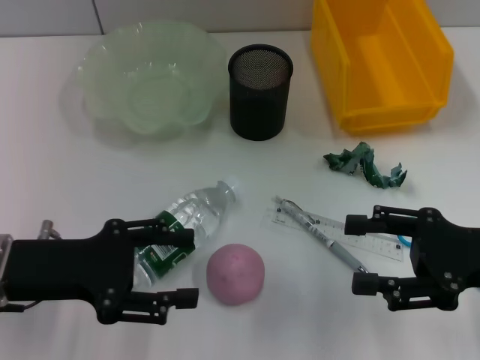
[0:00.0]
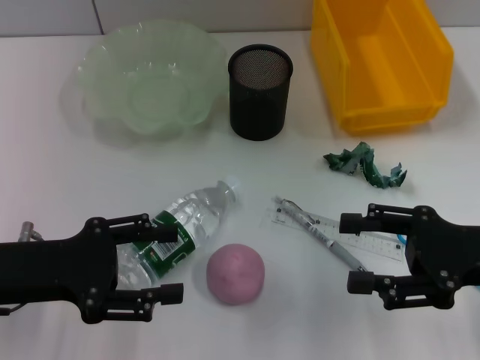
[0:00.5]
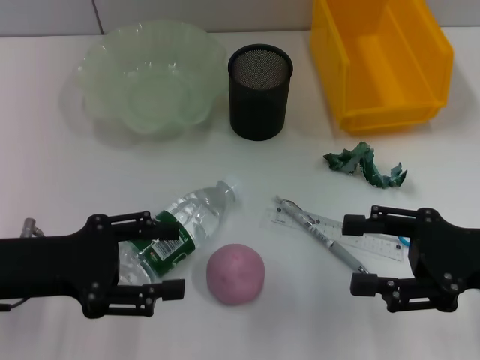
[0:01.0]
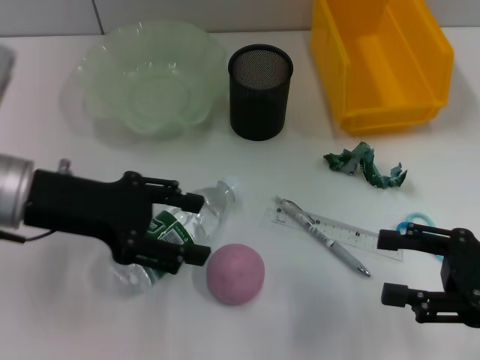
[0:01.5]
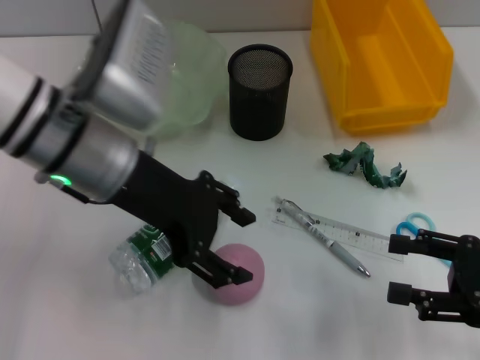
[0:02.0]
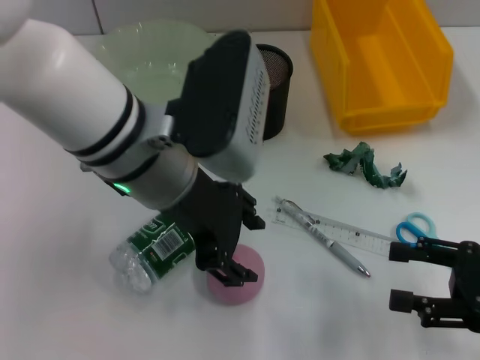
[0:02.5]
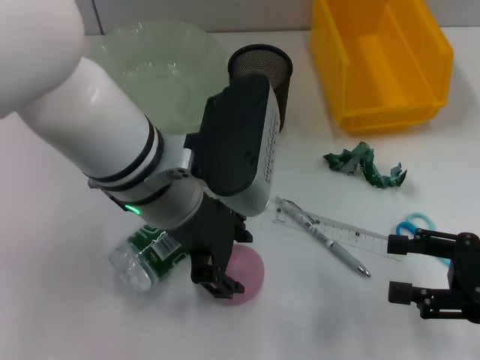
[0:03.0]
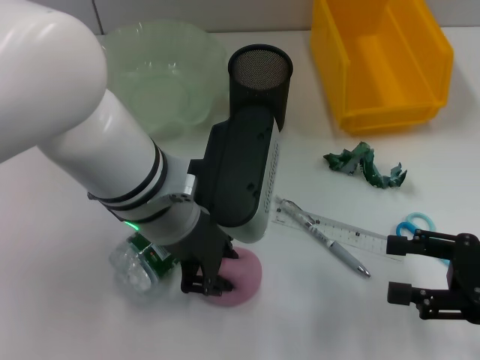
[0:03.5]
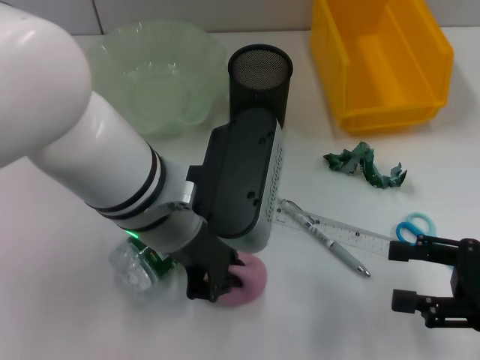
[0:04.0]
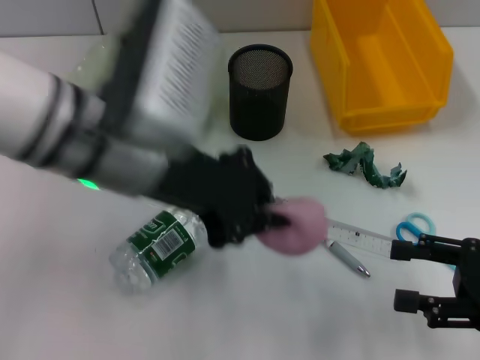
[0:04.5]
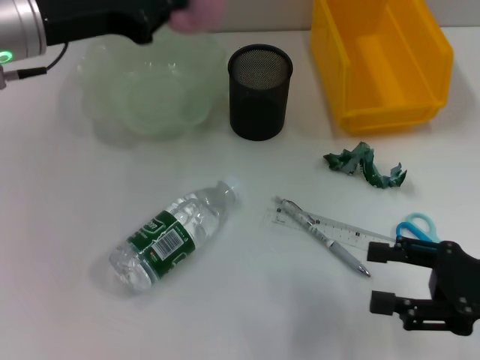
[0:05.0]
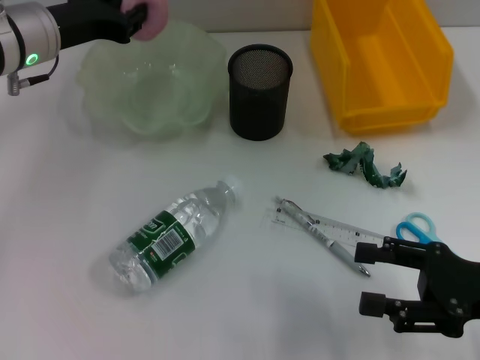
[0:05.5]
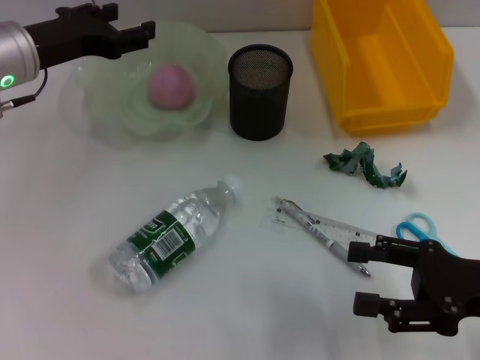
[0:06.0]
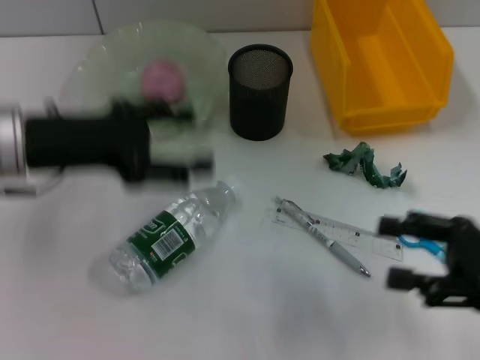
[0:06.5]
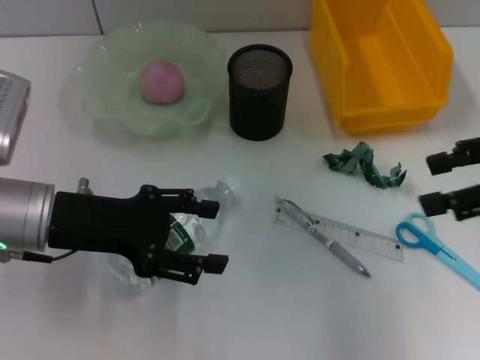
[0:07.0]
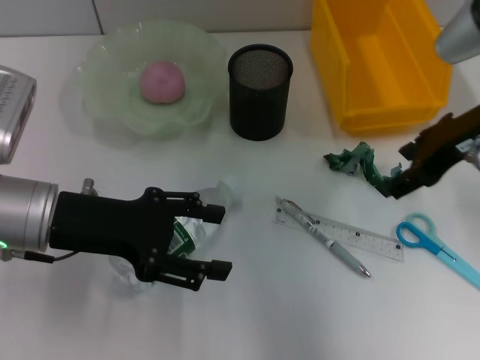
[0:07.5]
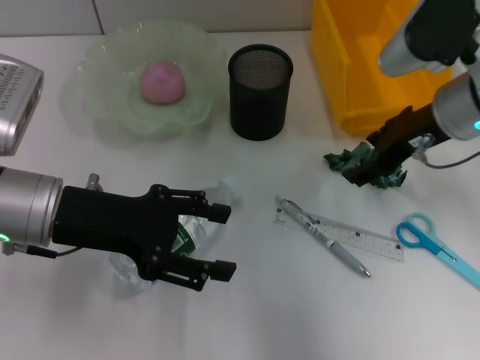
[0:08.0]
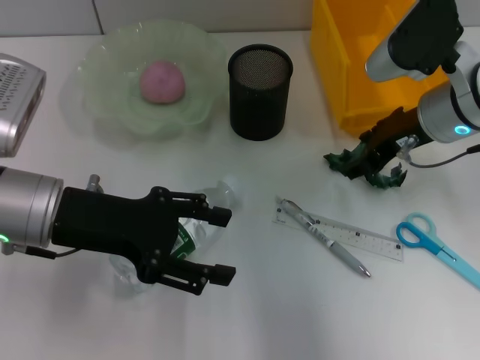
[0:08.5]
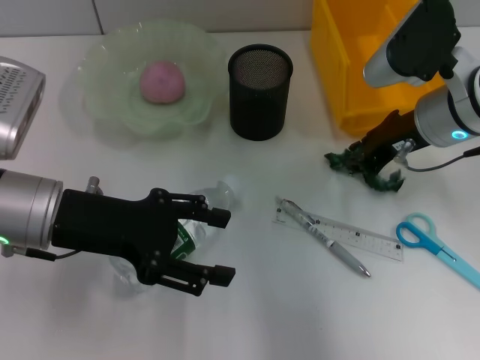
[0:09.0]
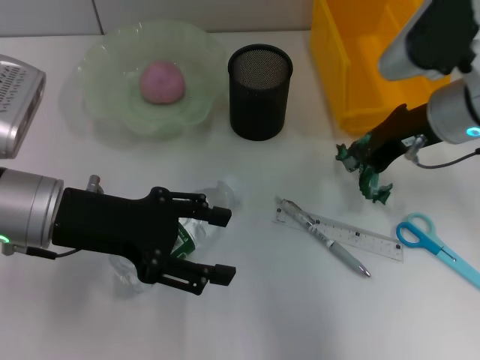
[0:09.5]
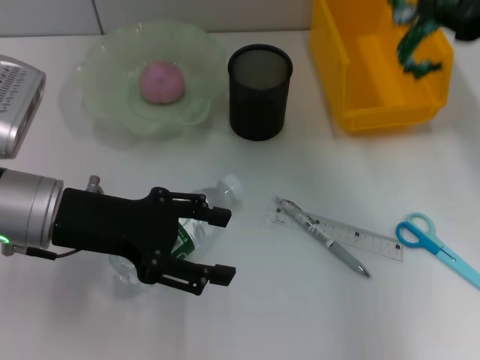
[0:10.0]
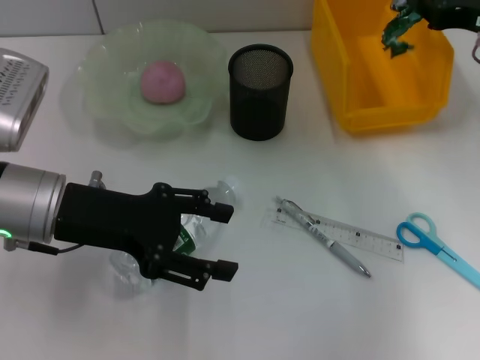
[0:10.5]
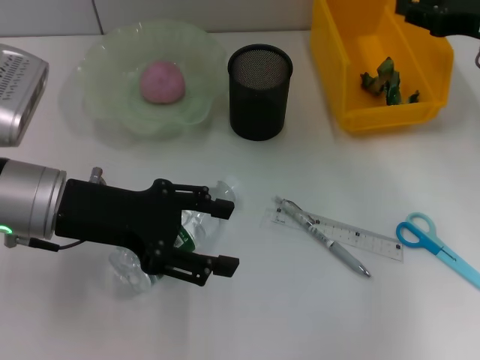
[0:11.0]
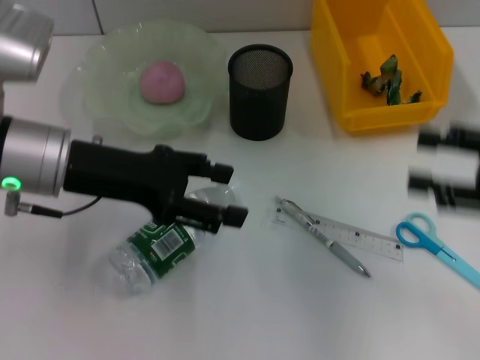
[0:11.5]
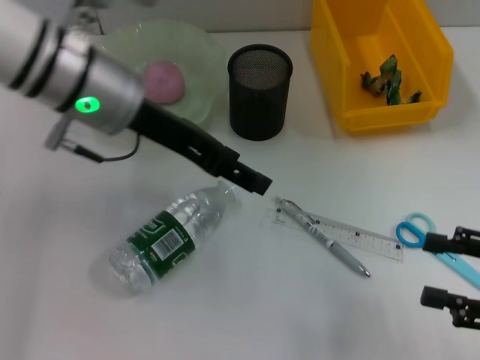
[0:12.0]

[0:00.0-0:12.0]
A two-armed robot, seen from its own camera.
Step, 0:00.0 to 0:03.5: Grab the peach with the left hand.
Step, 0:04.0 to 0:06.0: Place the peach into the fruit bowl with the left hand.
Step, 0:06.5 to 0:09.0: Grab the plastic with the right hand.
Step, 0:09.5 to 0:10.5: Place the plastic into the trash can with the right hand.
0:00.0 to 0:02.0: The left gripper is displaced to the right, upward and forward by about 15 cm. The right gripper shifts by approximately 5 cm.
0:02.0 to 0:04.0: The left gripper travels to the right by approximately 5 cm, and closes.
0:04.0 to 0:06.0: The left gripper moves to the left and forward, approximately 20 cm, and opens.
0:06.0 to 0:08.0: The left gripper is displaced backward by roughly 10 cm; the right gripper heads forward, upward and to the left, covering some 20 cm.
0:08.0 to 0:10.0: The right gripper goes some 10 cm to the right and upward, and closes.
0:10.0 to 0:12.0: The left gripper shifts about 10 cm upward and forward. The right gripper shifts roughly 20 cm backward and downward, and opens.

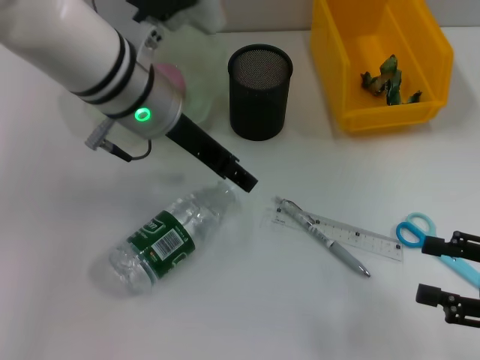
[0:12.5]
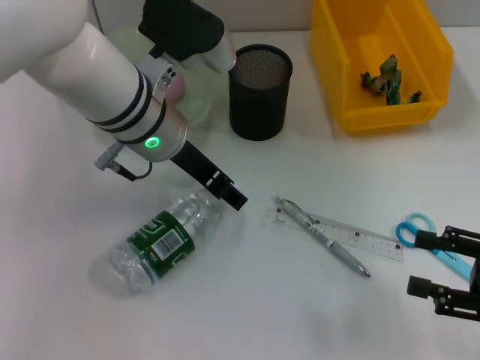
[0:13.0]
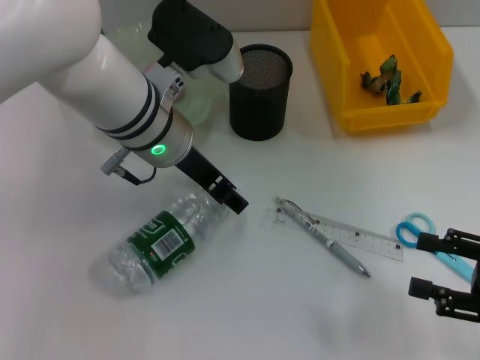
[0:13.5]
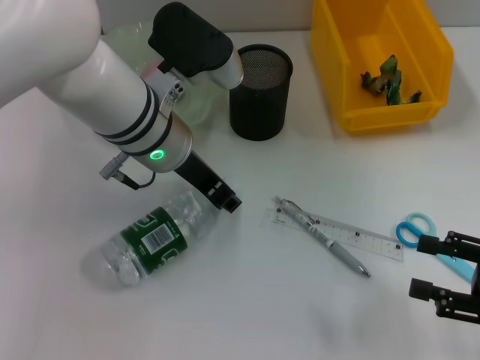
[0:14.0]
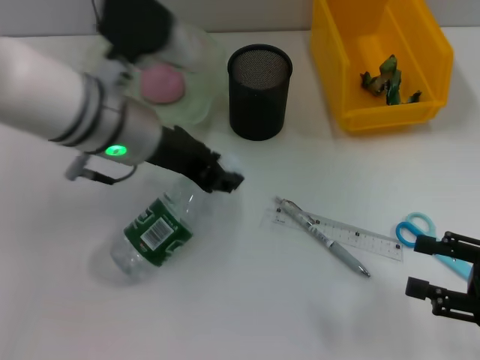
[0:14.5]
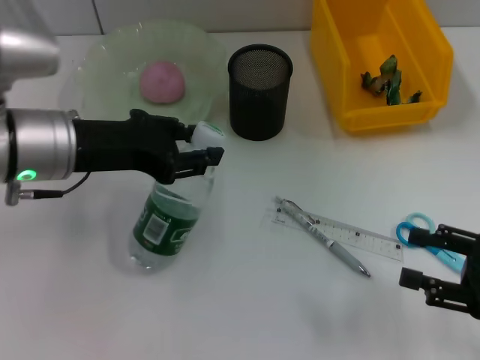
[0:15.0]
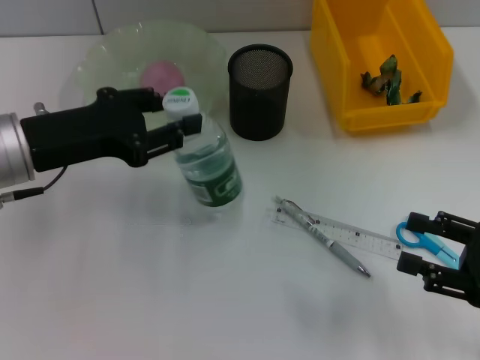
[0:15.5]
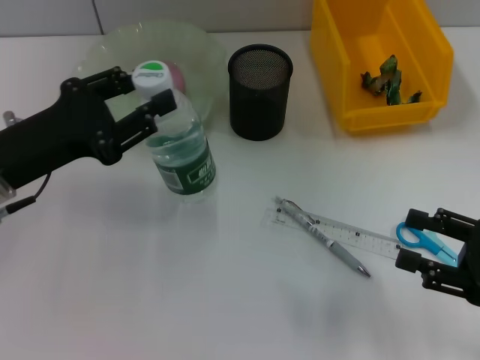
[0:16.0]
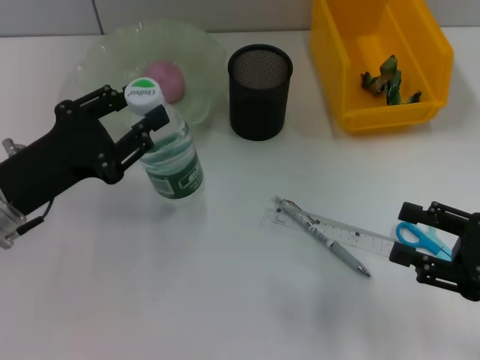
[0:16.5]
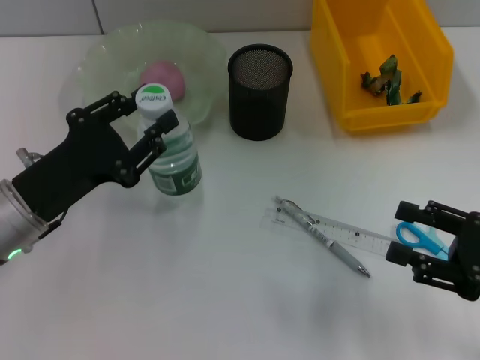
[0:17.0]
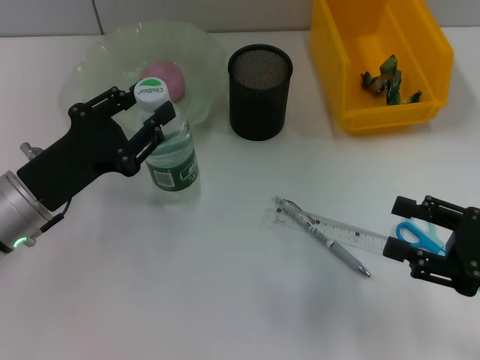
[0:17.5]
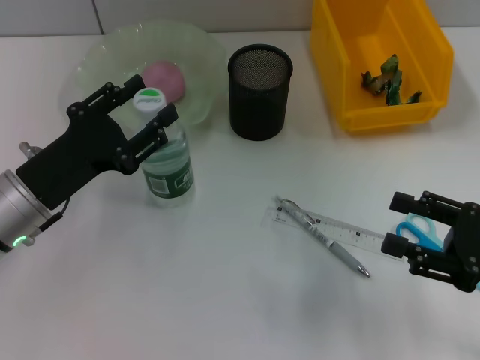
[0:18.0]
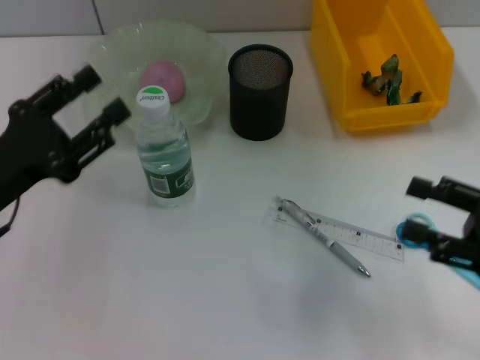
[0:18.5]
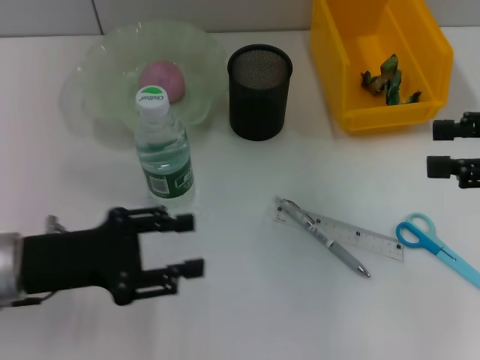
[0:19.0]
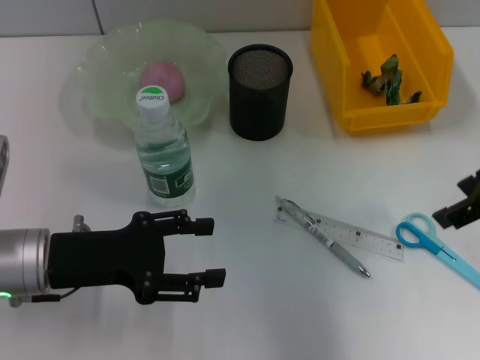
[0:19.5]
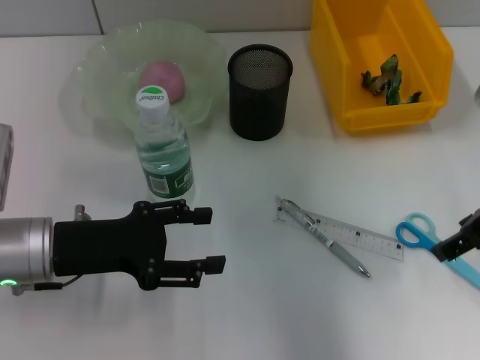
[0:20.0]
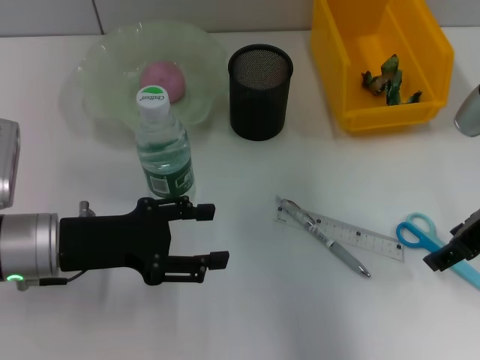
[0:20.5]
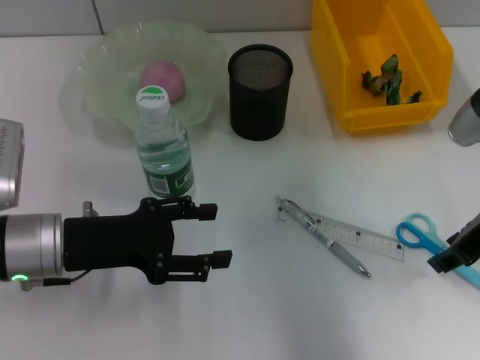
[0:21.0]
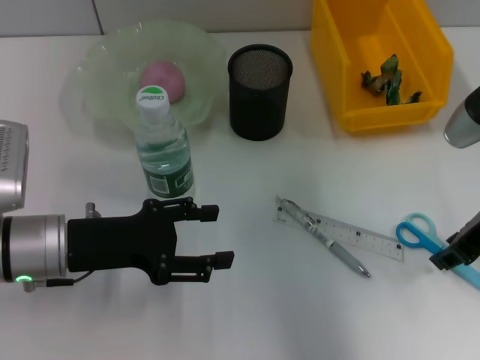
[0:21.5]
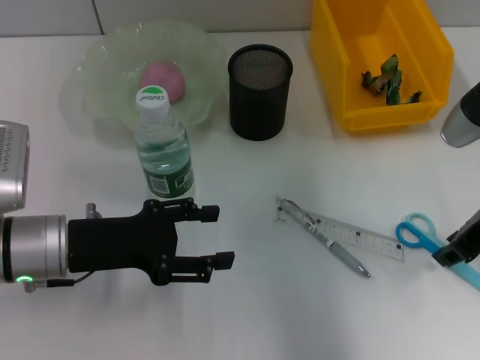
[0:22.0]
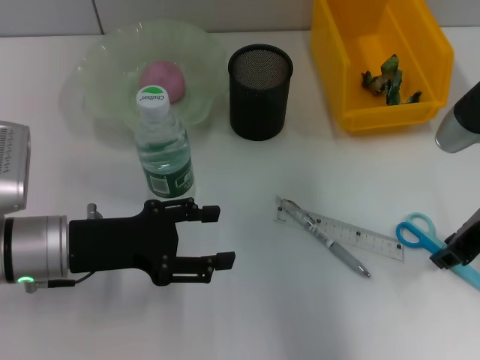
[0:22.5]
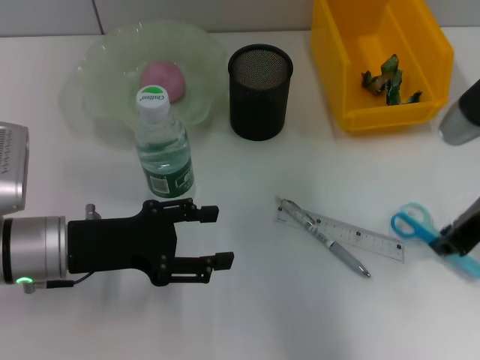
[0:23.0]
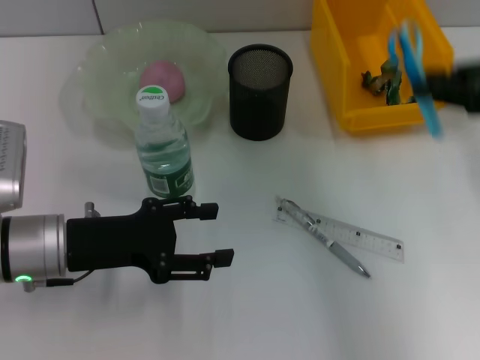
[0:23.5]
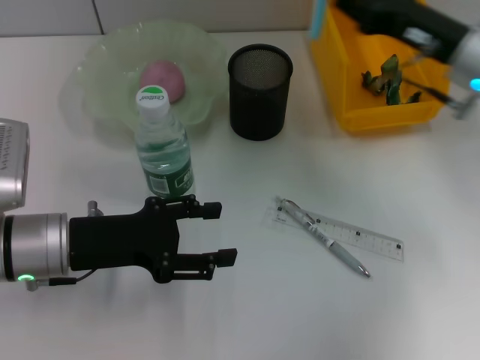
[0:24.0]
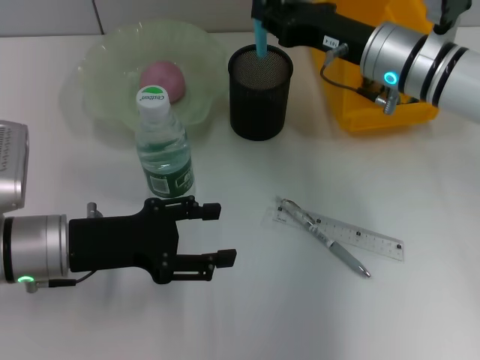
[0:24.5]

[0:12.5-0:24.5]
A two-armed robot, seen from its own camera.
Step, 0:14.0 to 0:18.0: Place the water bottle on the table with the left hand.
Step, 0:18.5 to 0:22.5: Grab the blue scissors with the right hand.
0:12.5 to 0:14.5: The left gripper closes up.
0:14.5 to 0:16.5: The left gripper is displaced to the left, downward and backward by some 15 cm.
0:16.5 to 0:18.5: The grippers make only small movements.
0:18.5 to 0:20.5: The right gripper shifts approximately 15 cm forward, upward and to the left. Meanwhile the left gripper heads to the right, covering approximately 5 cm.
0:20.5 to 0:22.5: The right gripper closes.
0:22.5 to 0:24.5: The right gripper goes roughly 15 cm forward and to the left.

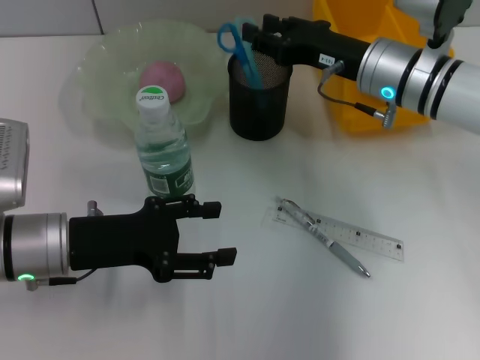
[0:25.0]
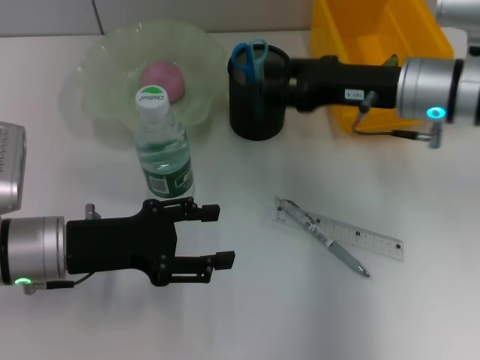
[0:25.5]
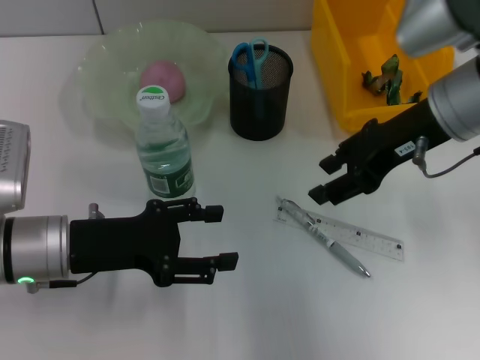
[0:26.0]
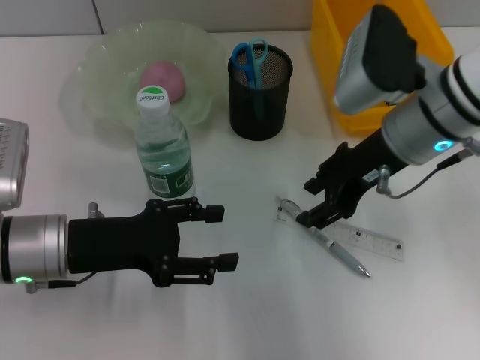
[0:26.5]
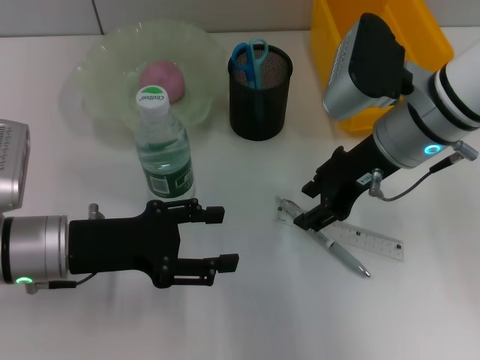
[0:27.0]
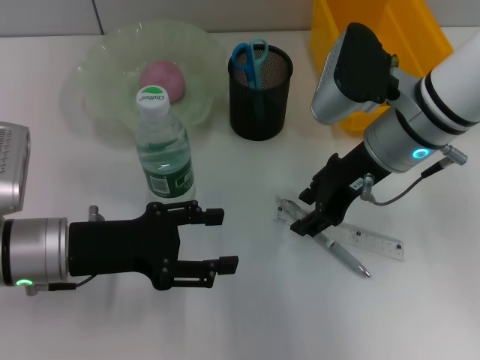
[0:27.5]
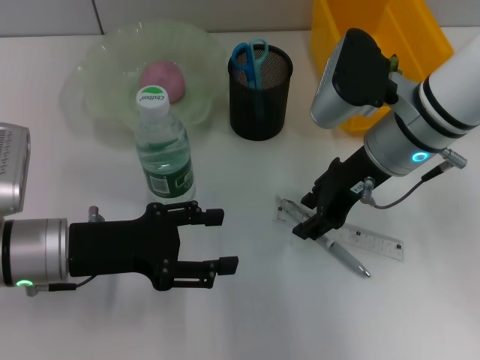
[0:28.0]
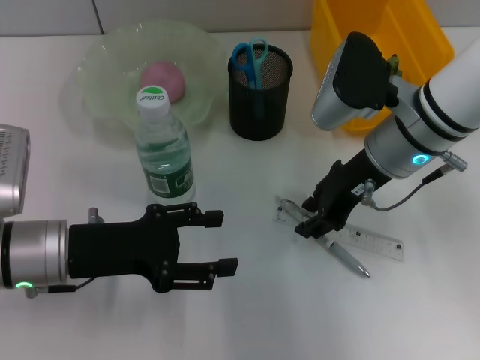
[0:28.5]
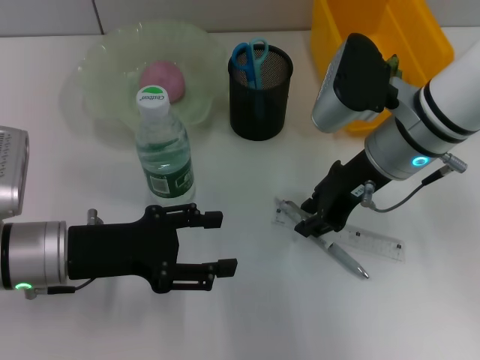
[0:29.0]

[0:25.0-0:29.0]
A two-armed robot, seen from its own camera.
Step, 0:25.5 to 0:28.5: Grab the ruler with the right hand.
0:27.0 to 0:29.0: The grippers stay close to where they were, moving slightly.
